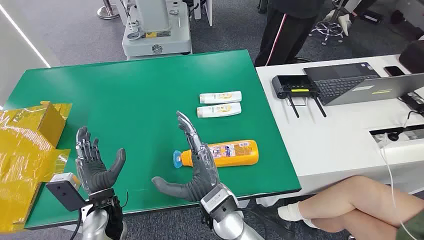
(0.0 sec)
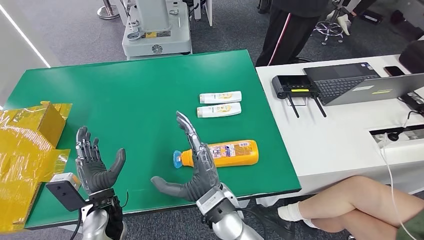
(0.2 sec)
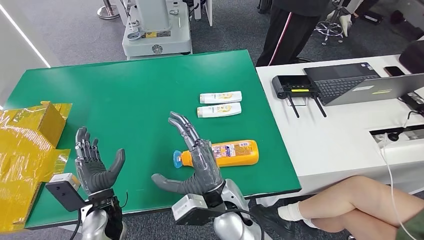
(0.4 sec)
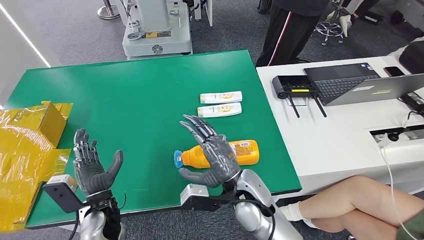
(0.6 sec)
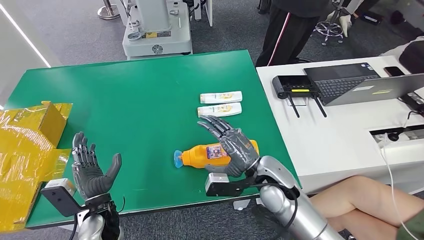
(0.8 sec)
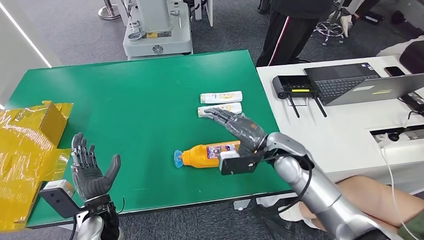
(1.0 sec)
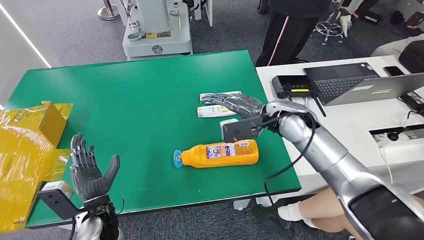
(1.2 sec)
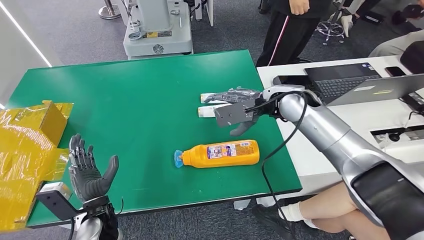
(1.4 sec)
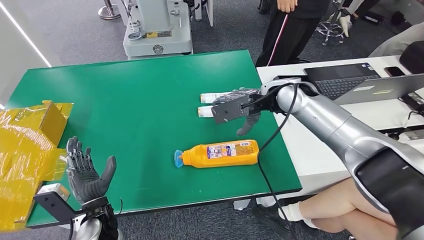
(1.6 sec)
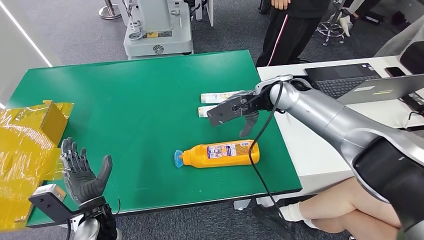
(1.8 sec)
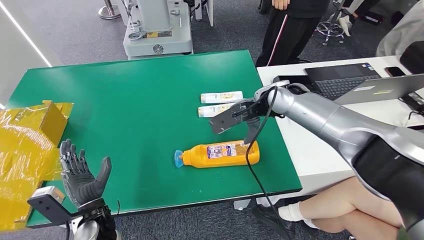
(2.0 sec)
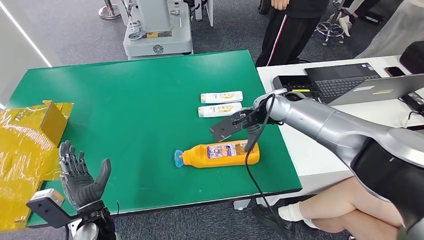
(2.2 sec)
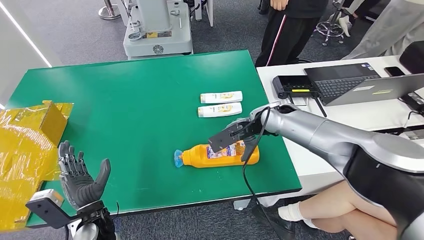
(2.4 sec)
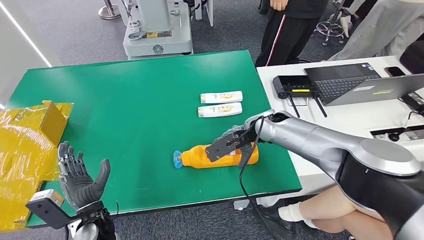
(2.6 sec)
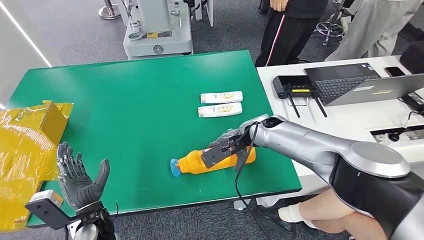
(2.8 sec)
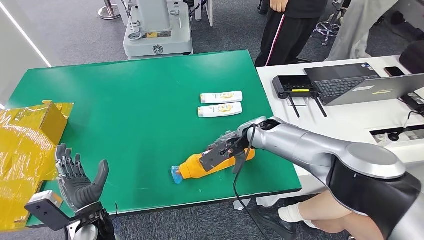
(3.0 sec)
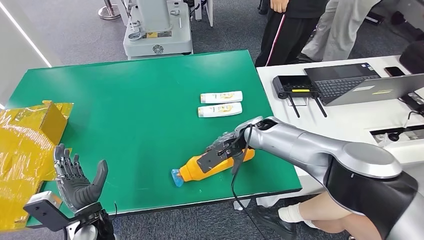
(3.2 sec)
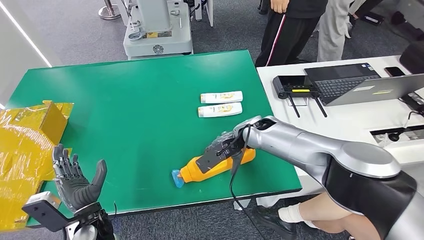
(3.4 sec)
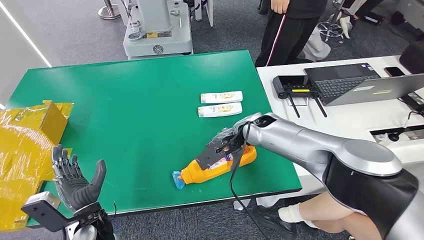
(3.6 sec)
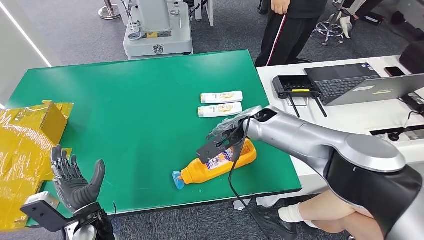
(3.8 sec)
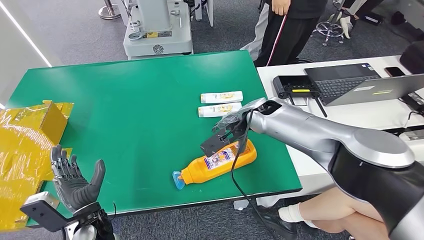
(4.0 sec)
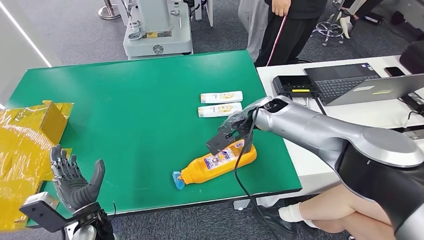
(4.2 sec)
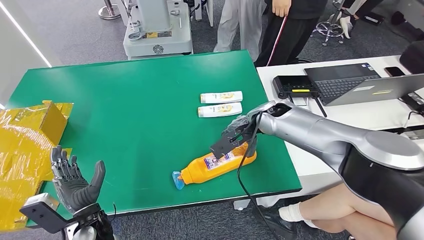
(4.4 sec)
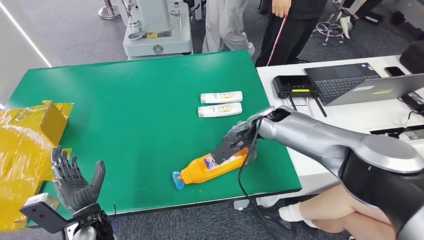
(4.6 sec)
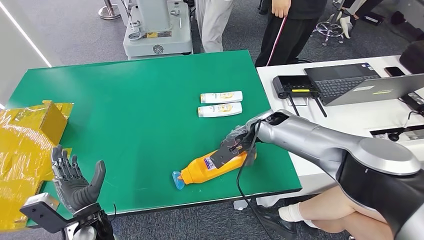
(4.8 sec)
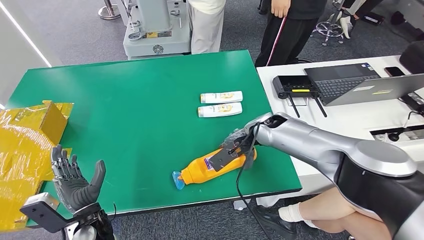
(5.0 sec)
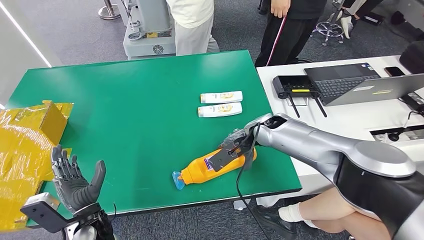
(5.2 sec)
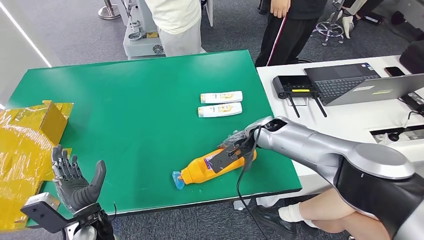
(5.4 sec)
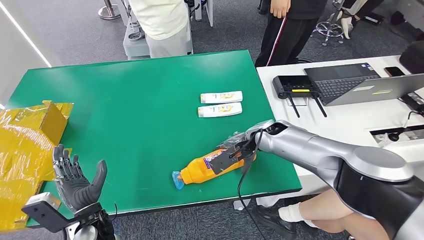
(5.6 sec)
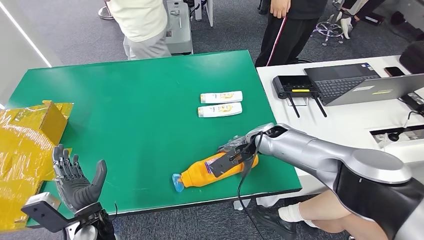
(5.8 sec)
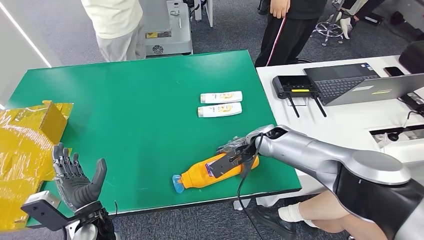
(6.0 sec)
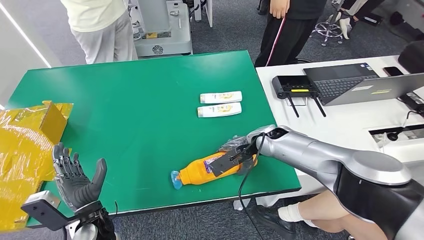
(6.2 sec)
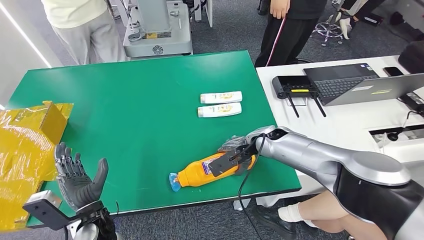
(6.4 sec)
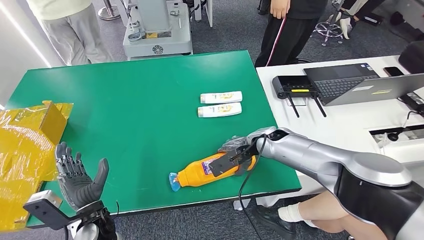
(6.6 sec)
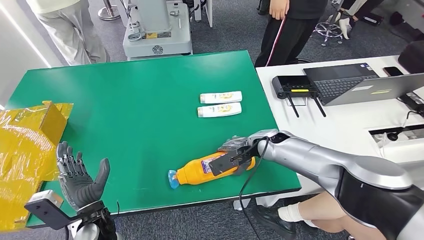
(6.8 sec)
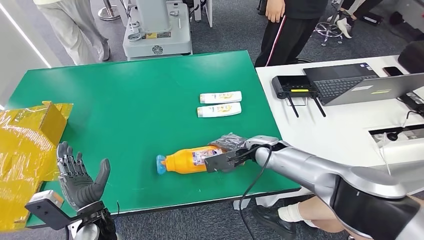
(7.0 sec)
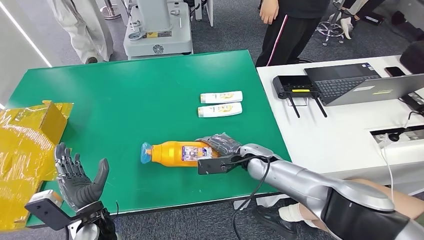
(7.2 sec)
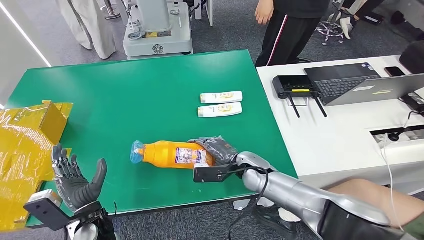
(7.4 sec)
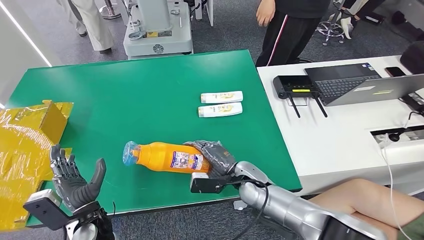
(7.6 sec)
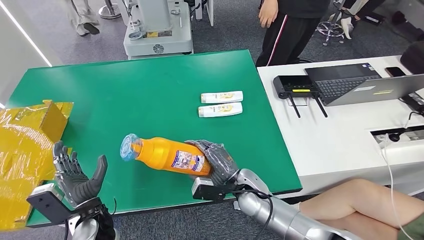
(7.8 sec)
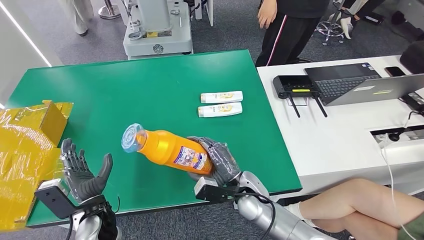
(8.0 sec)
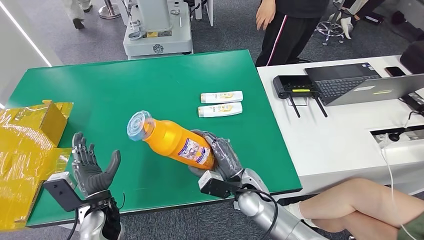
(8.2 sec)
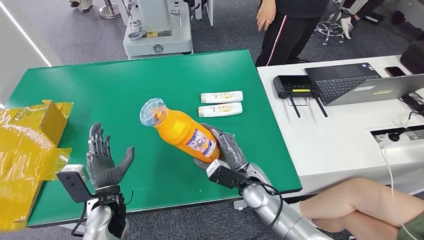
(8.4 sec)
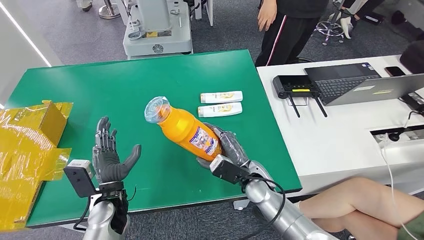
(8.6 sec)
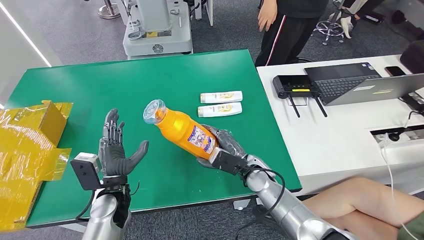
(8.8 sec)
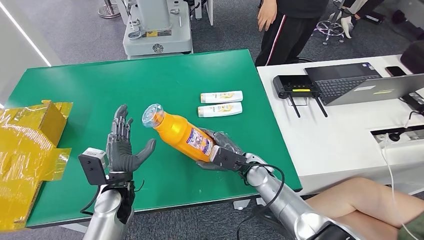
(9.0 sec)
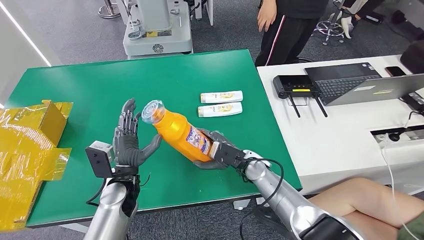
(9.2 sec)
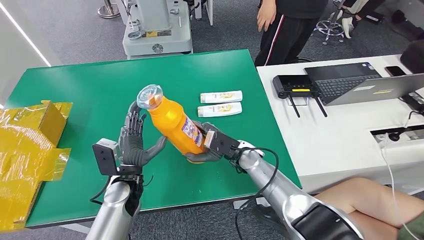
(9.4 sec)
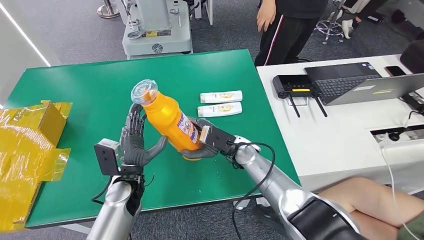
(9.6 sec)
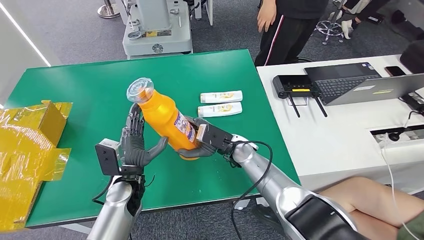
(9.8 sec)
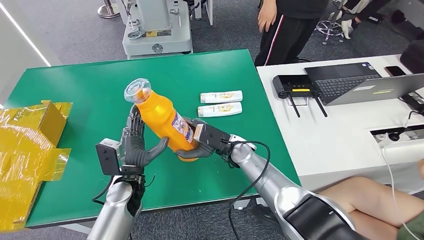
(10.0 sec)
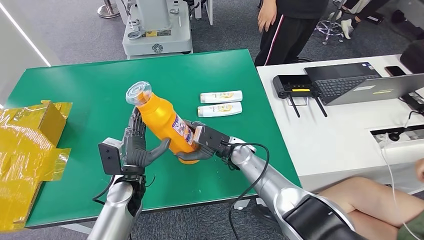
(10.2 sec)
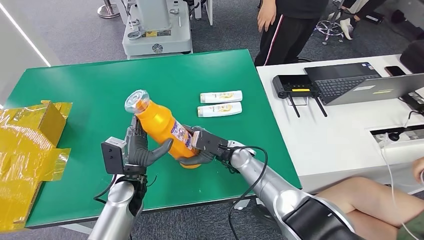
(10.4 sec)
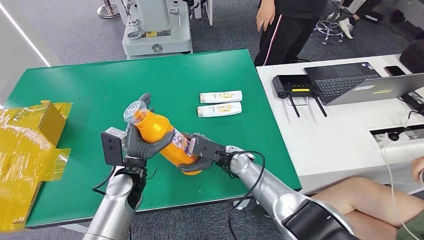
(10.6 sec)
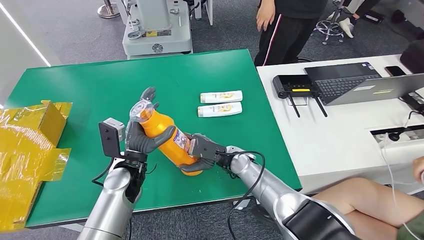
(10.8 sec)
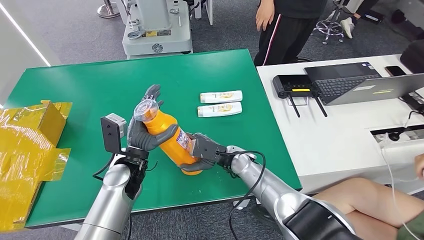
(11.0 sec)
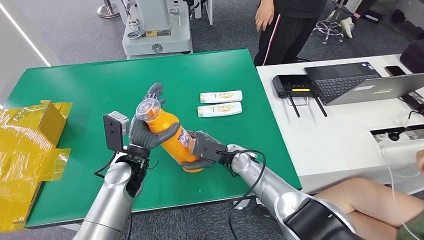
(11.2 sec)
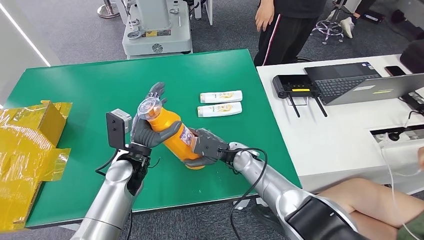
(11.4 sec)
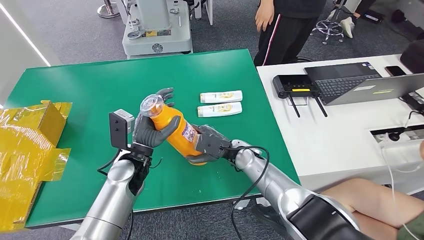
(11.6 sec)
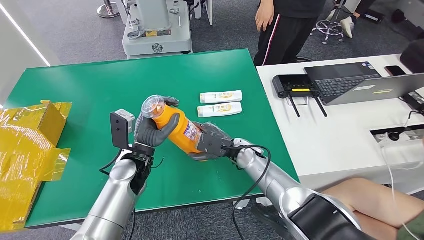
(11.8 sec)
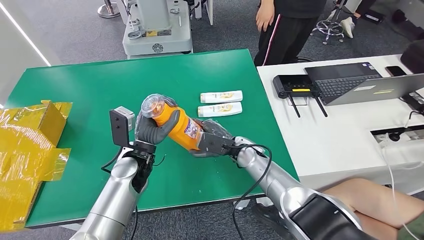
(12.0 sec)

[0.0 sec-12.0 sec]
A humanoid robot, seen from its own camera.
Step, 0.0 sec to 7.8 sec: Pick up the bottle from the table.
3.0 sec to 4.4 sec: The right hand ends up some 5 cm from where it was.
7.6 sec to 9.0 sec: The left hand goes approximately 5 cm to the right and forward.
9.0 sec to 10.4 sec: The right hand changes place by some 5 cm.
10.4 sec to 12.0 sec: The left hand changes place by some 5 cm.

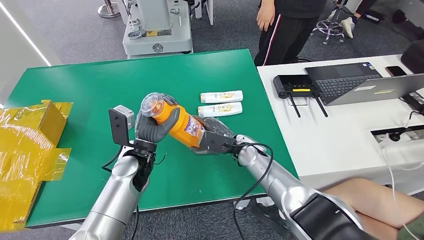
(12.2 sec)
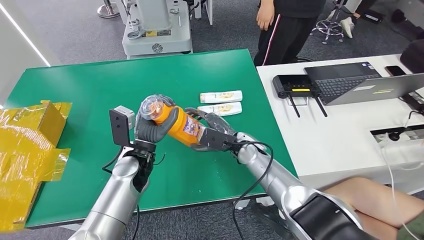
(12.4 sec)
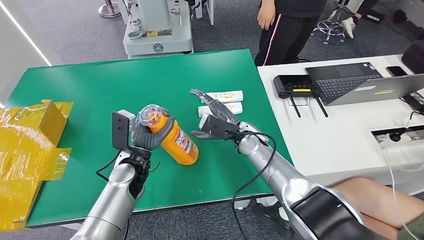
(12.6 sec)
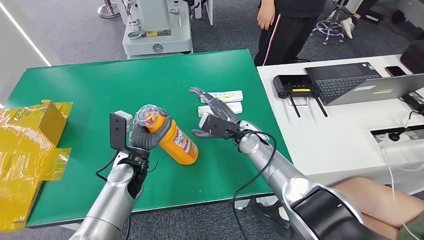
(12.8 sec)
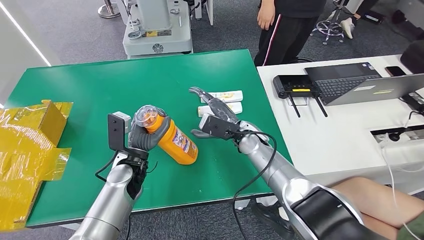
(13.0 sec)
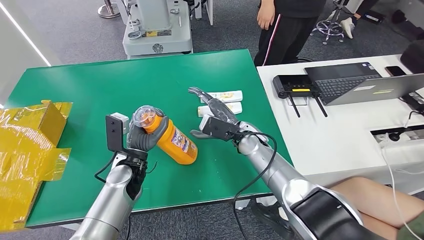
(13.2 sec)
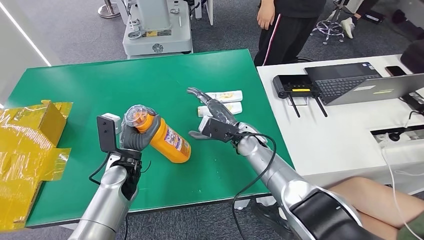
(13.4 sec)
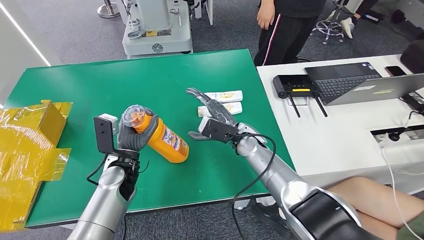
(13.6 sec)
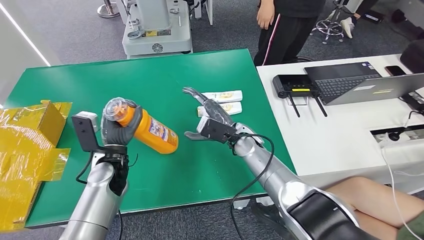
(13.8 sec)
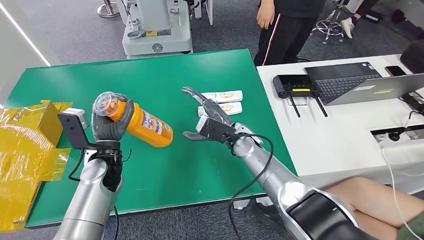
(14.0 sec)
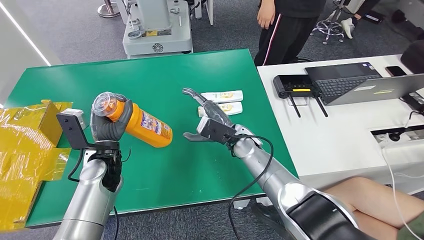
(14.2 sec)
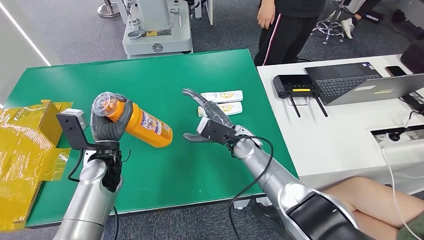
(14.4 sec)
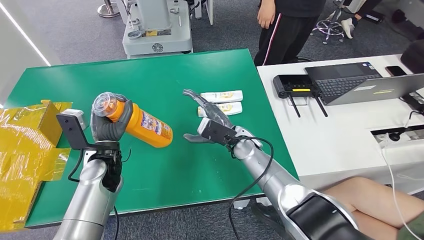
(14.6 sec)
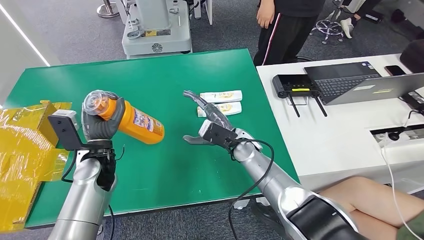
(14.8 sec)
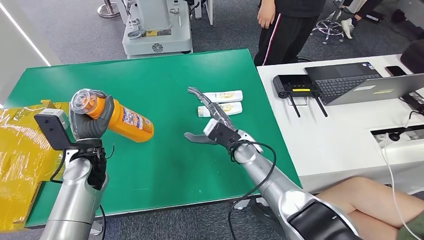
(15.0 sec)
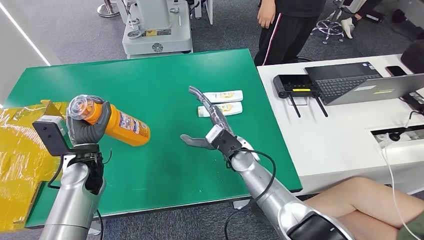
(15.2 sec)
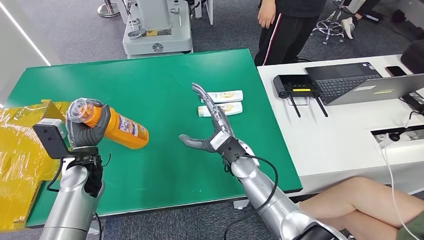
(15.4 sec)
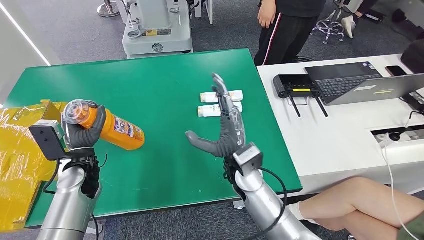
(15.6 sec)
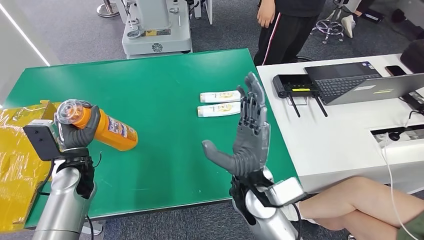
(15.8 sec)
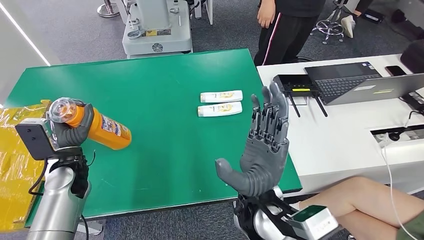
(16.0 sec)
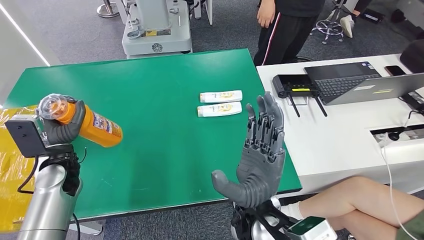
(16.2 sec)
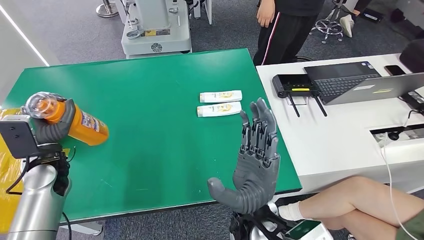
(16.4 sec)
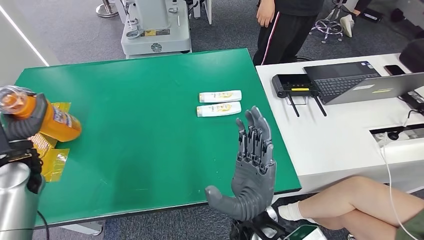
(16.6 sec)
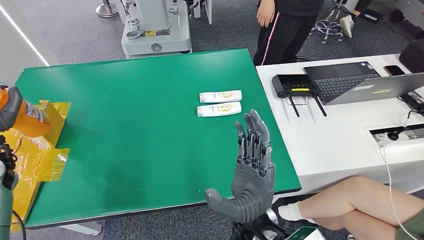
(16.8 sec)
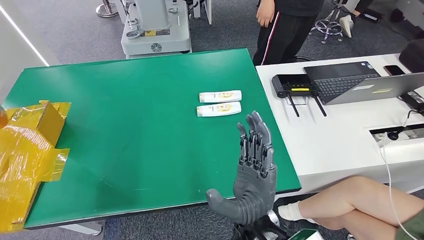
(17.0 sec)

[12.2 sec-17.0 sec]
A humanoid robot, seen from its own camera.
12.2 sec to 13.8 sec: The left hand heads to the left, covering some 5 cm.
